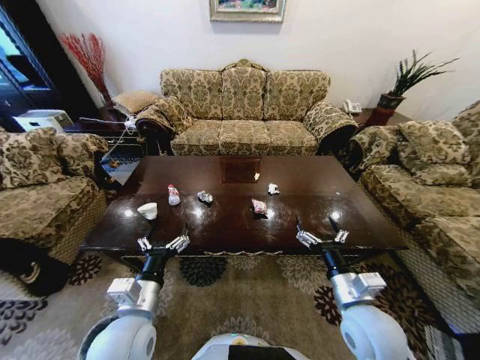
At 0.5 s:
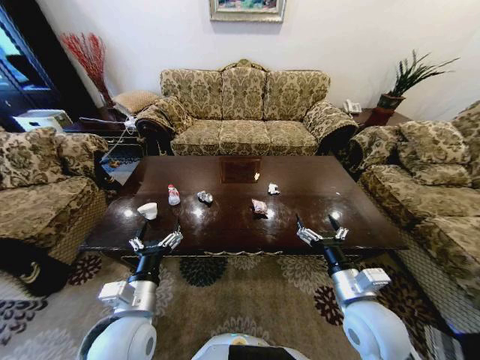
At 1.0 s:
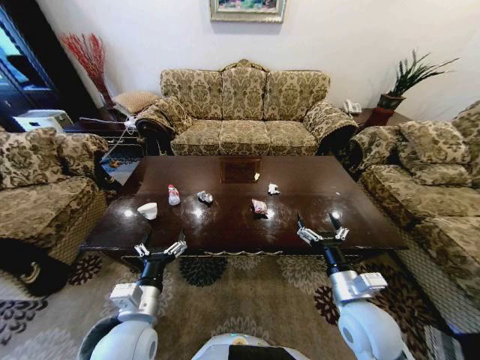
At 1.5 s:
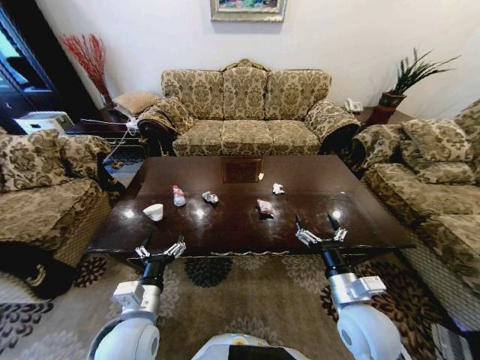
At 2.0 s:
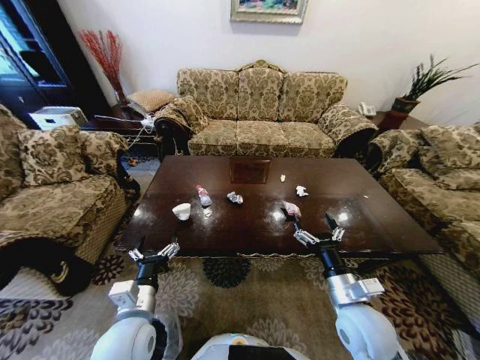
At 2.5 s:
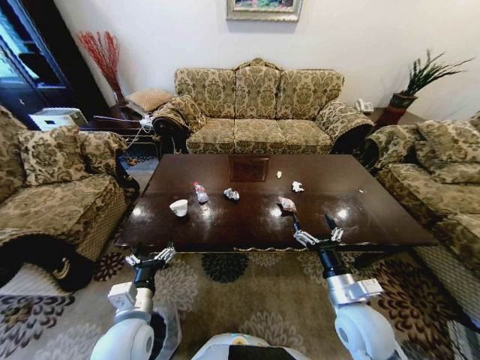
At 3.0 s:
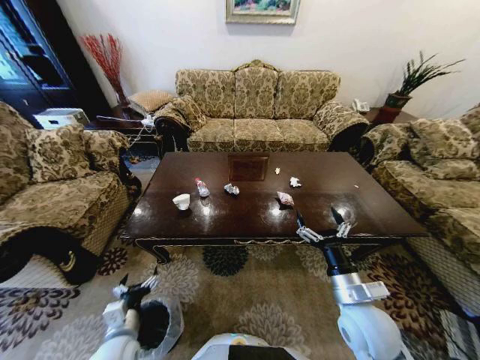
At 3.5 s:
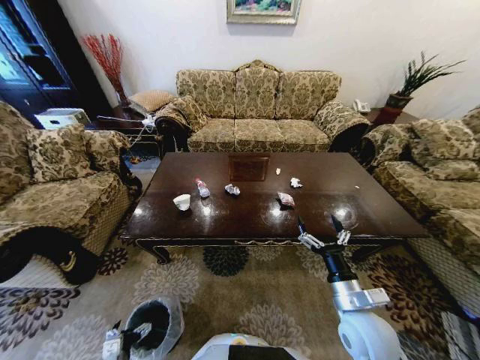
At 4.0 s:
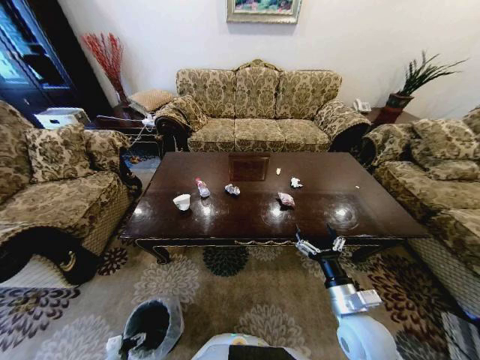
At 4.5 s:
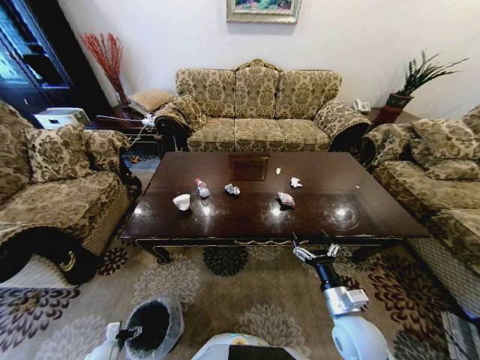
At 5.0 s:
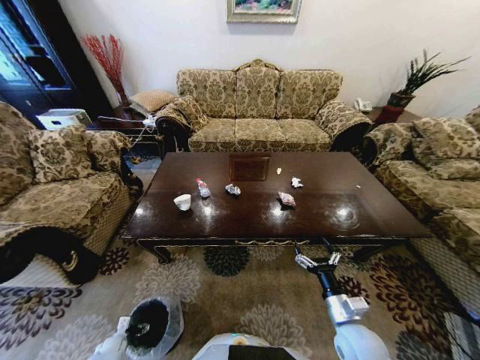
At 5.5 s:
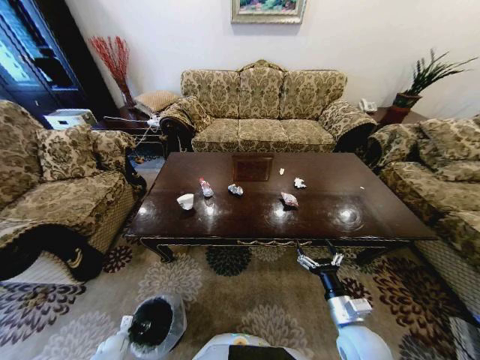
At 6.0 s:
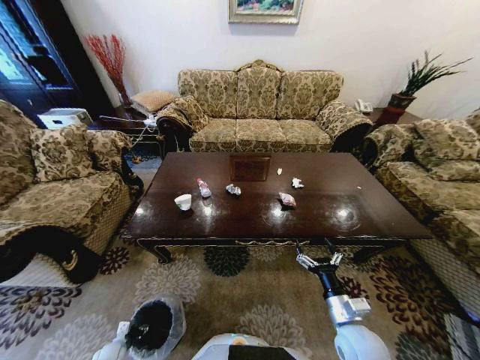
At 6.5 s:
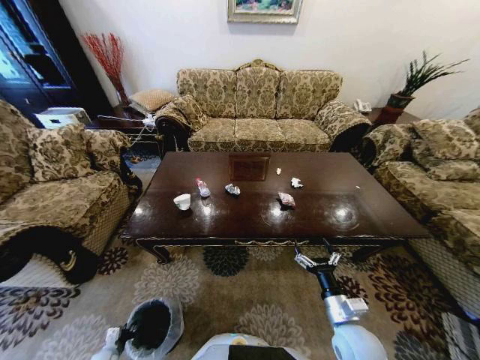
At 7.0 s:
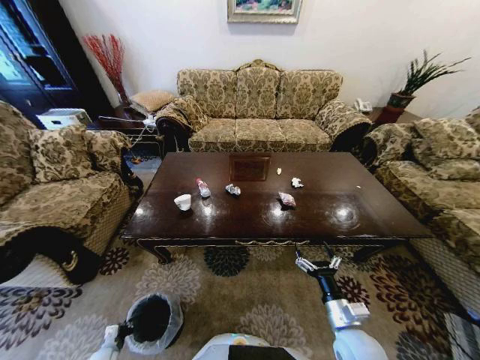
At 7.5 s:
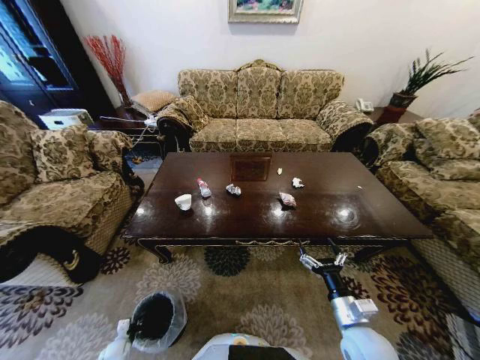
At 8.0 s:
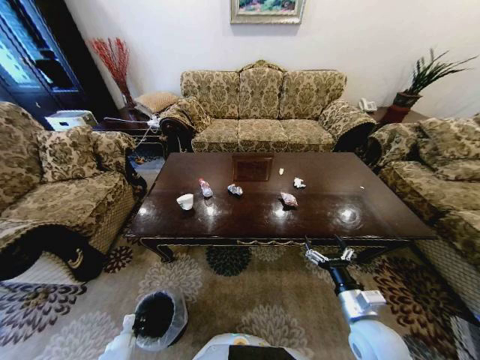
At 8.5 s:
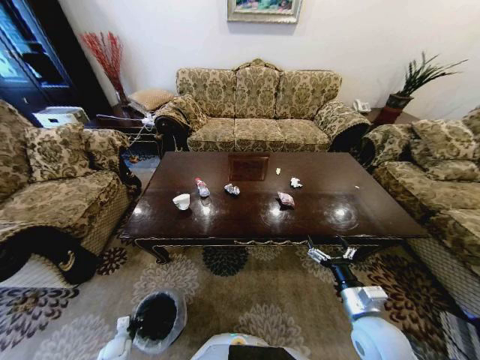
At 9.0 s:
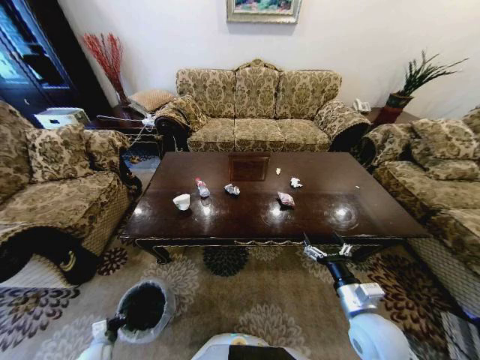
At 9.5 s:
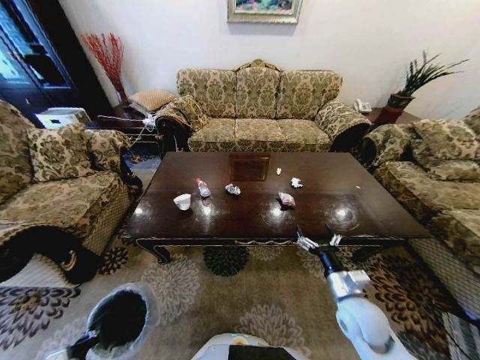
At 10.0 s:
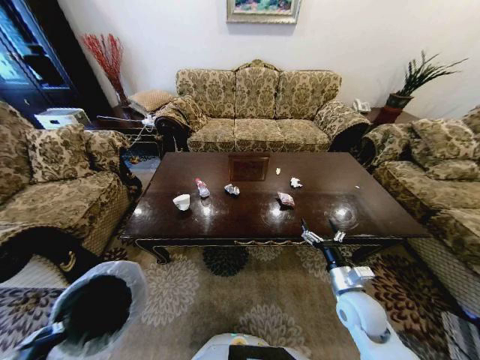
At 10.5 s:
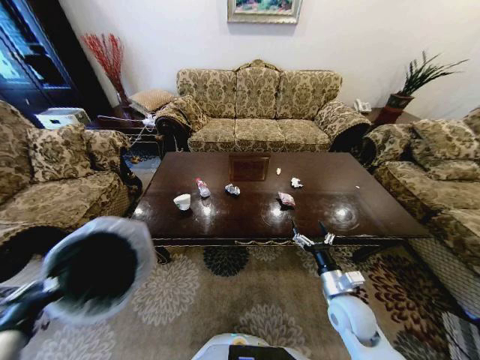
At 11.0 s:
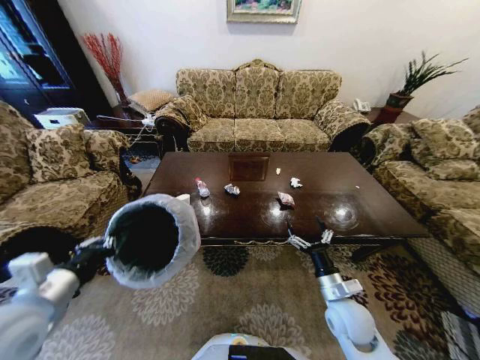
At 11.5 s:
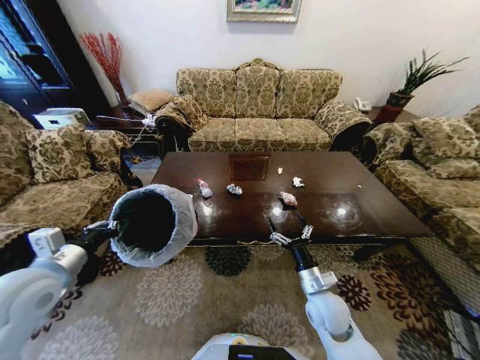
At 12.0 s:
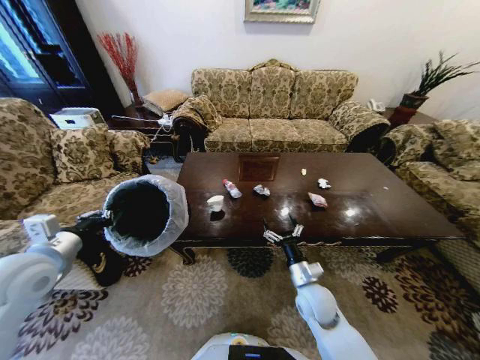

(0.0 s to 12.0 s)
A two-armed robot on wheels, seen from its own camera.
Task of the whole recording: Move to the front of the table and place the trash on the table into the trash bin.
2.0 s - 4.0 s: The left gripper shifts roughly 35 cm downward and to the left.
4.0 s - 6.0 s: The right gripper ends up about 5 cm from where it was, while the left gripper travels downward, to the left and forward by about 10 cm.
6.0 s - 8.0 s: The left gripper closes.
8.0 s - 10.0 s: The right gripper moves forward, about 5 cm; the left gripper heads upward and backward, covering some 35 cm.
10.0 s - 12.0 s: The left gripper goes approximately 30 cm upward and forward. The right gripper shifts roughly 10 cm to the left.

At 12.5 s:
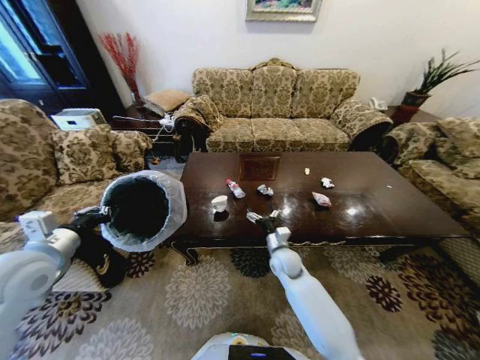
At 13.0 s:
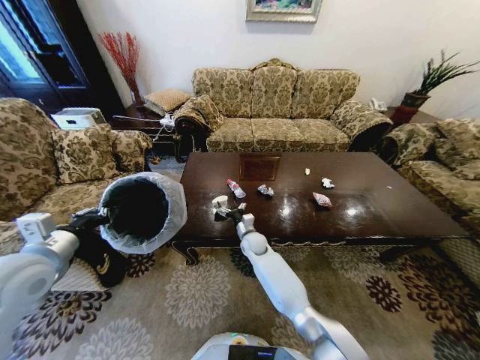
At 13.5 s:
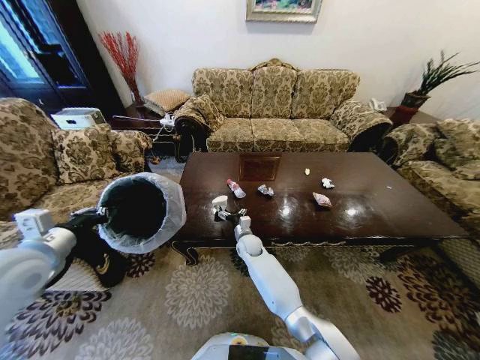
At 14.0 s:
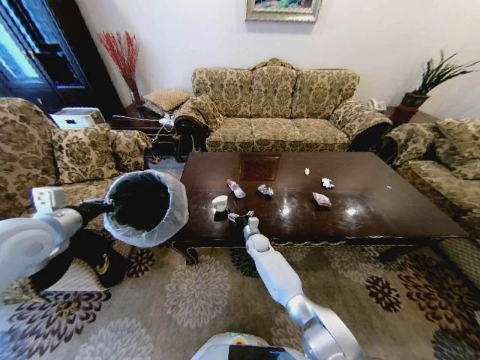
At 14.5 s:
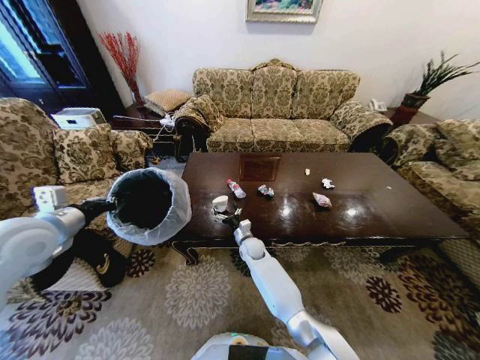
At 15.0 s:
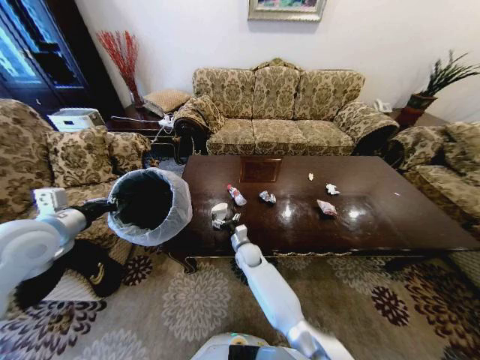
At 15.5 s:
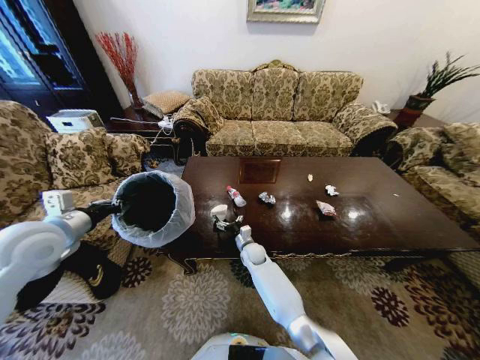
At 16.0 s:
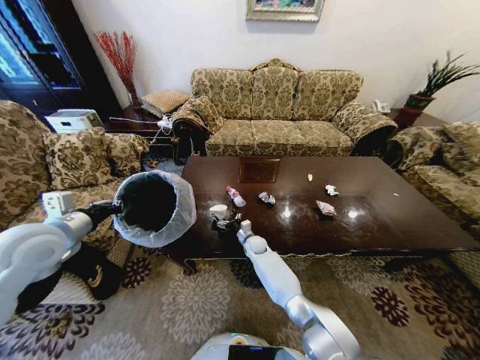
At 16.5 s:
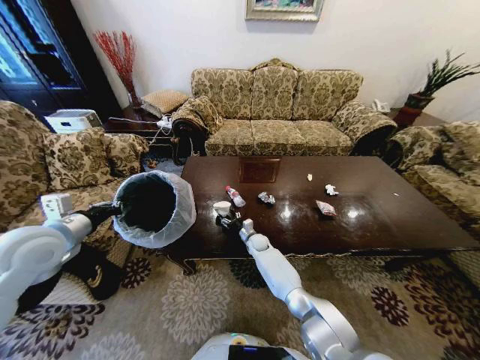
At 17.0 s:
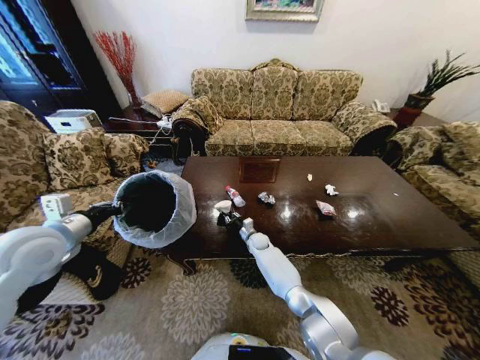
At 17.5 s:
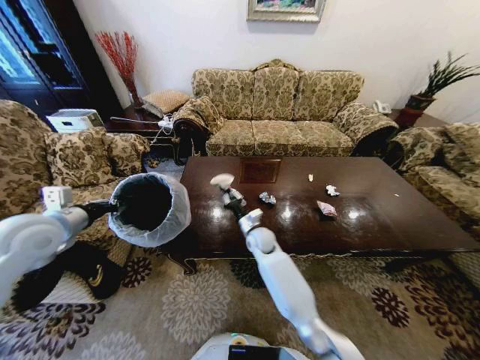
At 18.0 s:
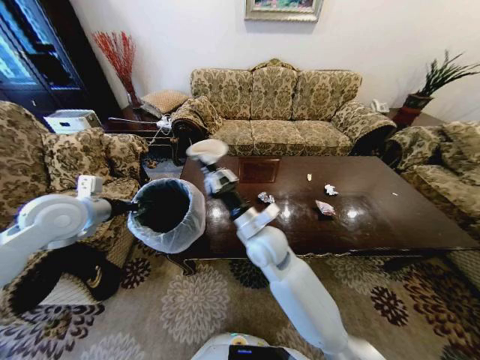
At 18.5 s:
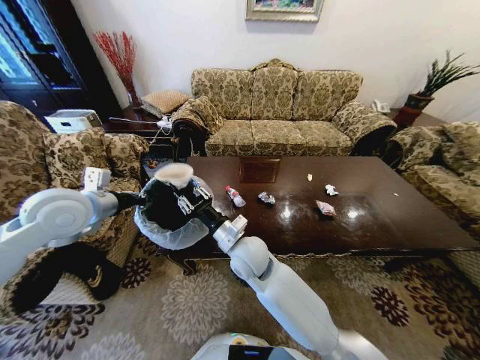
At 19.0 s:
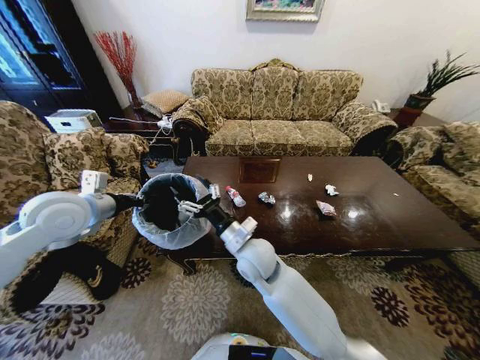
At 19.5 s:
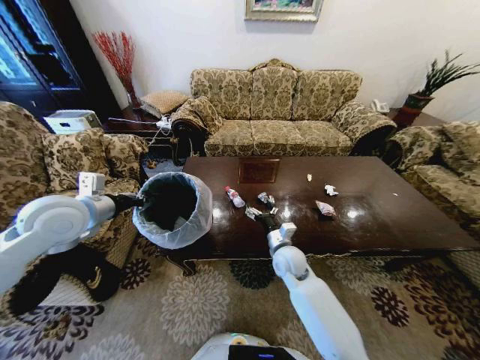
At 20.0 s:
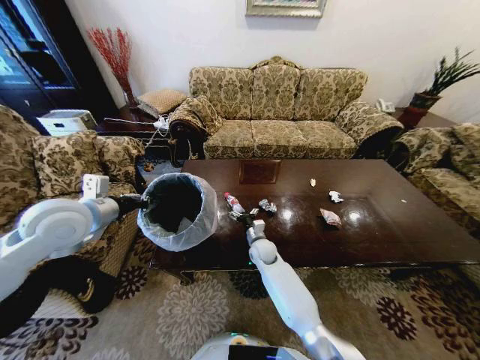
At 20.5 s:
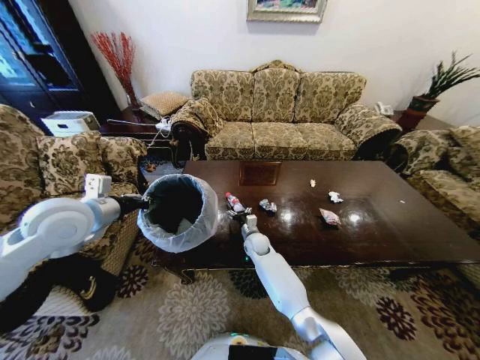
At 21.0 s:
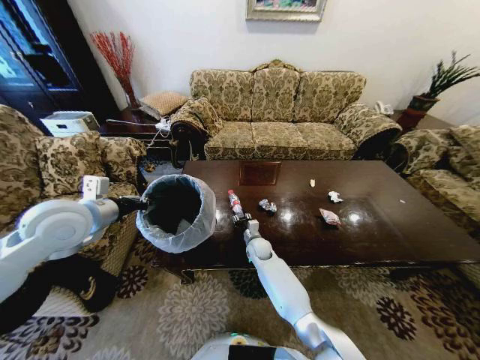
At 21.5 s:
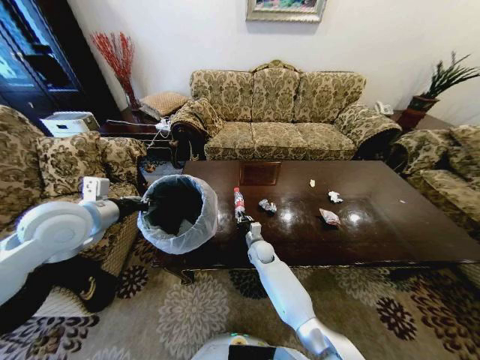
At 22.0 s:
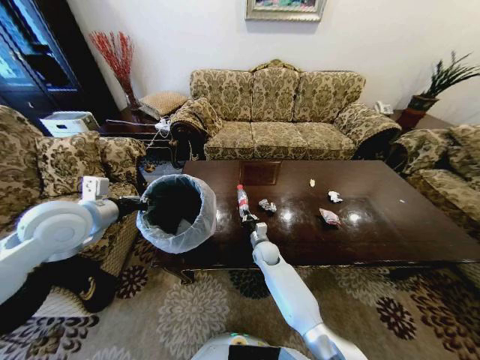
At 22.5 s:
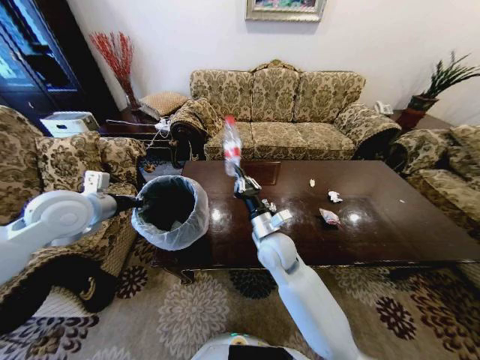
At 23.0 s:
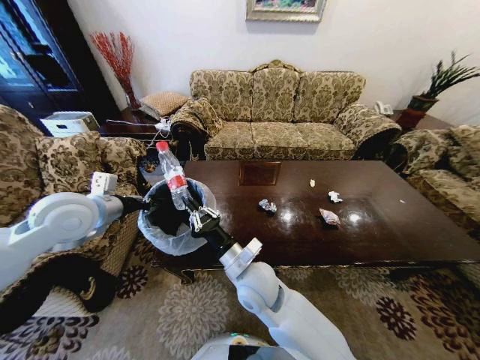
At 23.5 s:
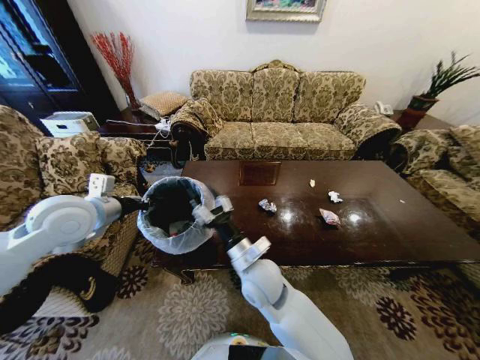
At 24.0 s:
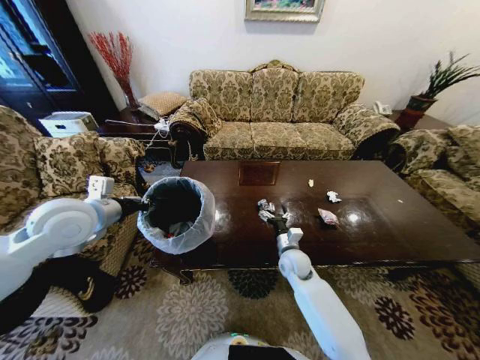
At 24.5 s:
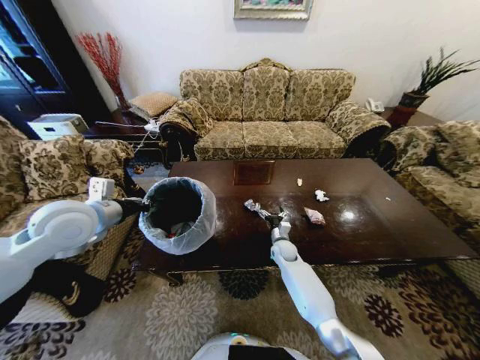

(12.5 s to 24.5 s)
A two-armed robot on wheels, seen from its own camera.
Task of the whole recording: Move to the front of the table and place the trash on the table into the trash bin.
12.5 s - 14.5 s: The left gripper moves roughly 5 cm; the right gripper moves to the left, forward and downward, approximately 15 cm.
14.5 s - 16.5 s: The right gripper goes approximately 5 cm forward.
16.5 s - 18.5 s: The left gripper goes approximately 10 cm to the right, upward and forward, while the right gripper is displaced upward and backward by roughly 30 cm, and closes up.
18.5 s - 20.5 s: The right gripper moves downward and forward, roughly 25 cm, and opens its fingers.
20.5 s - 22.5 s: The right gripper travels upward and backward by about 25 cm, and closes its fingers.
22.5 s - 24.5 s: The right gripper moves downward, forward and to the right, approximately 30 cm, and opens.

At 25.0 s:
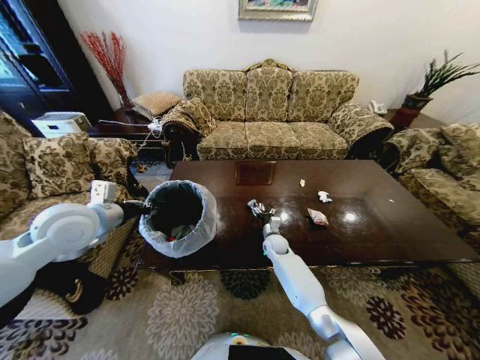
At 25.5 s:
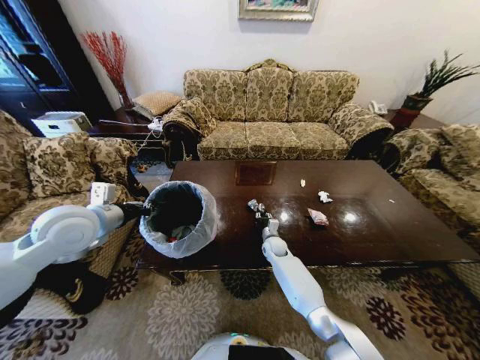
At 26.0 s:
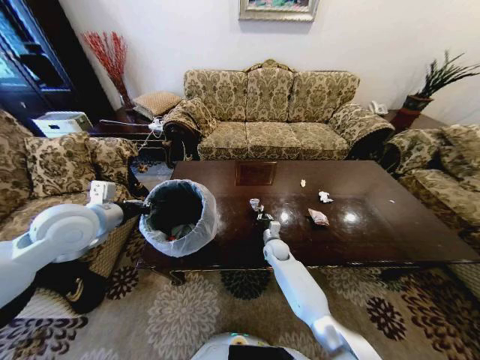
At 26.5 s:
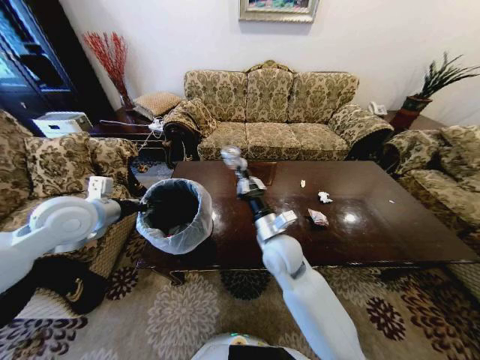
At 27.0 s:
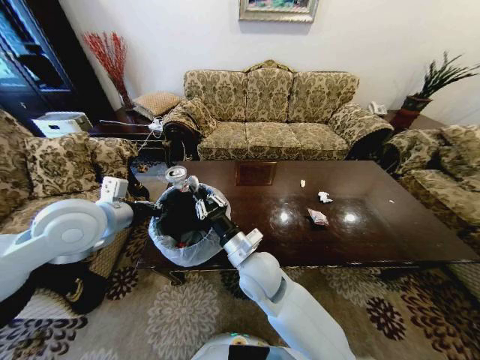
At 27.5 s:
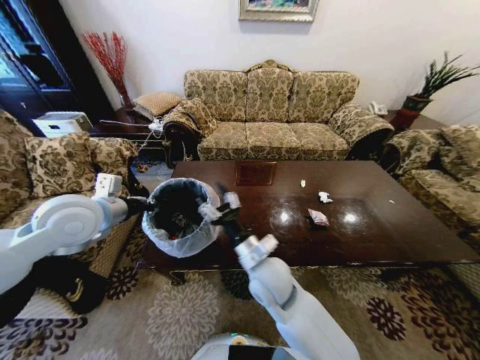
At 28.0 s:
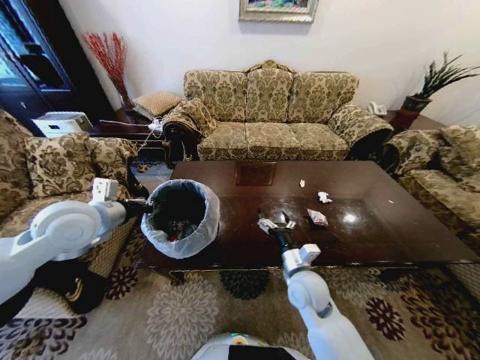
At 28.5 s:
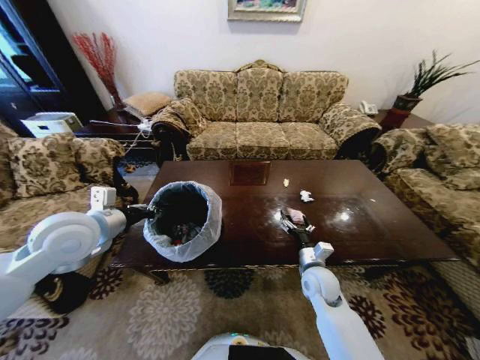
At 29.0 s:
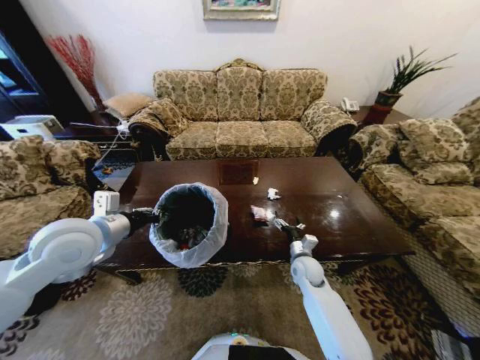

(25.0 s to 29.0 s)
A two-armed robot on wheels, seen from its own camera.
Task of the whole recording: Move to the front of the table and place the trash on the table into the trash bin.
25.0 s - 27.0 s: The right gripper moves upward, backward and to the left, about 30 cm, and closes. The left gripper ends up roughly 5 cm from where it was.
27.0 s - 29.0 s: The right gripper is displaced to the right, downward and forward by some 25 cm, and opens its fingers.
